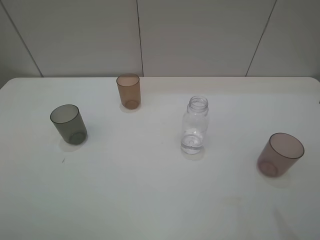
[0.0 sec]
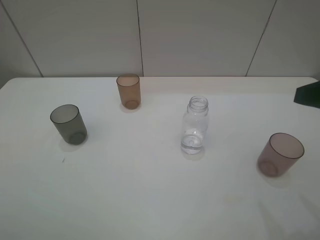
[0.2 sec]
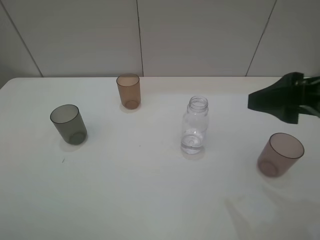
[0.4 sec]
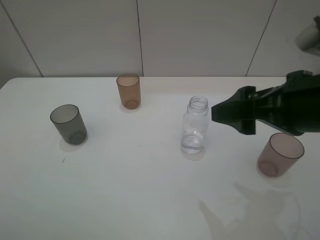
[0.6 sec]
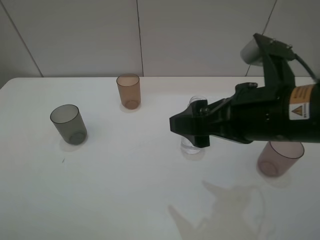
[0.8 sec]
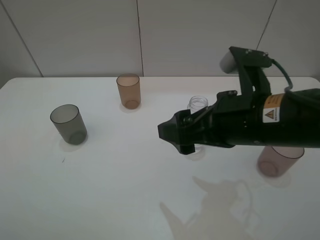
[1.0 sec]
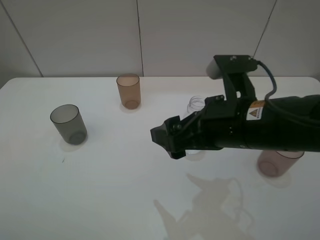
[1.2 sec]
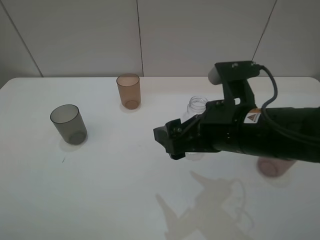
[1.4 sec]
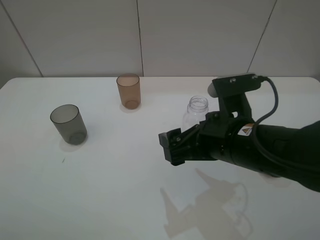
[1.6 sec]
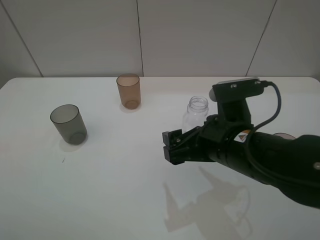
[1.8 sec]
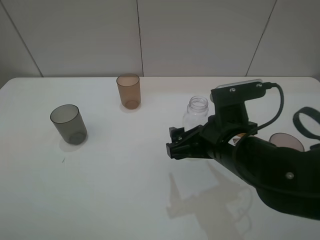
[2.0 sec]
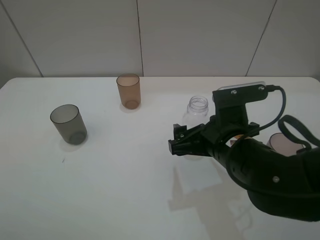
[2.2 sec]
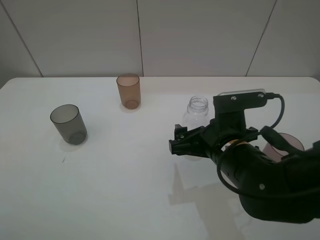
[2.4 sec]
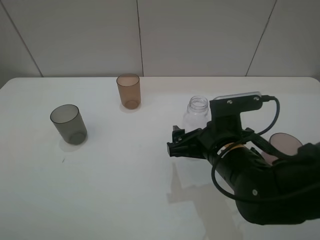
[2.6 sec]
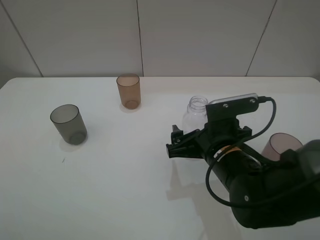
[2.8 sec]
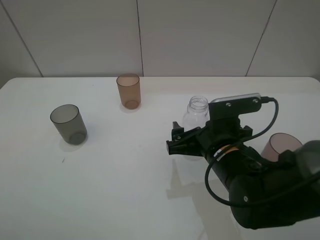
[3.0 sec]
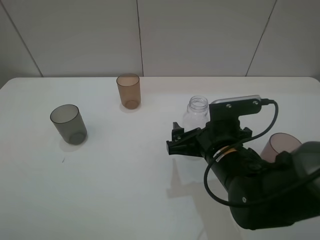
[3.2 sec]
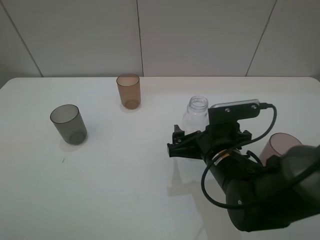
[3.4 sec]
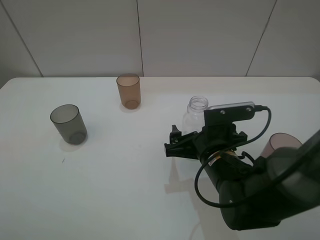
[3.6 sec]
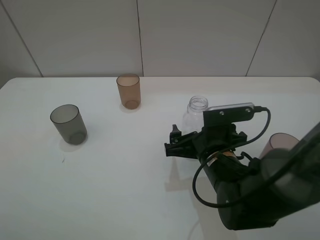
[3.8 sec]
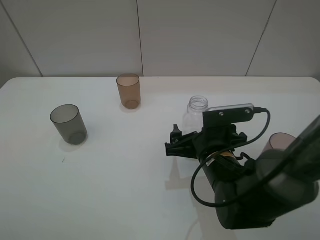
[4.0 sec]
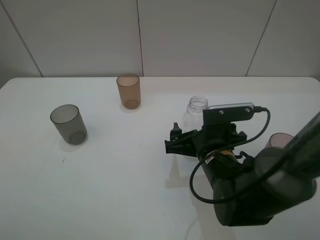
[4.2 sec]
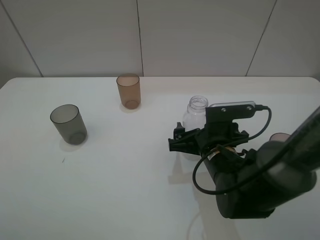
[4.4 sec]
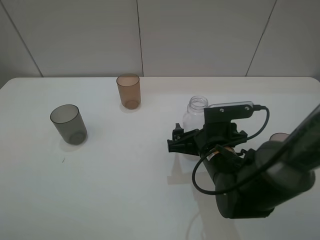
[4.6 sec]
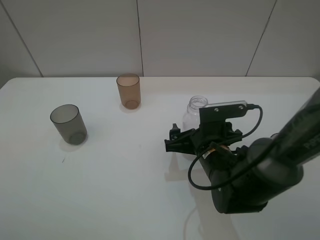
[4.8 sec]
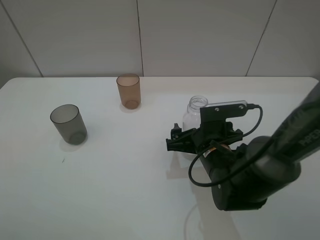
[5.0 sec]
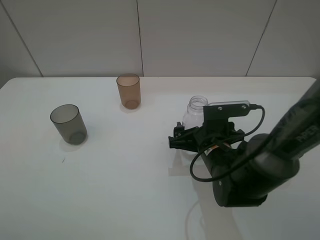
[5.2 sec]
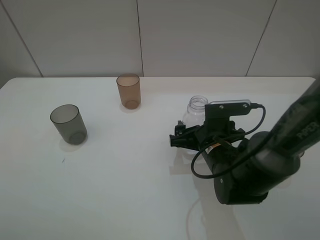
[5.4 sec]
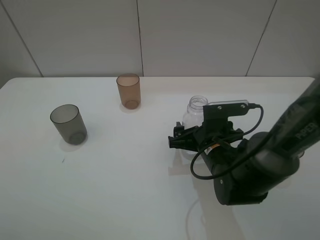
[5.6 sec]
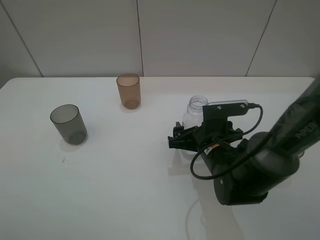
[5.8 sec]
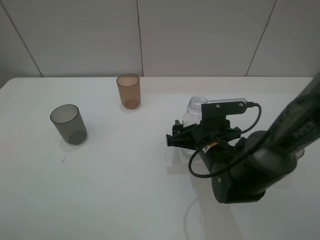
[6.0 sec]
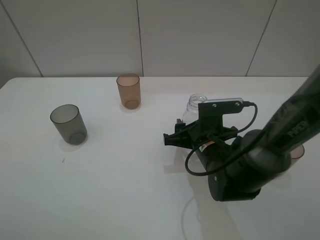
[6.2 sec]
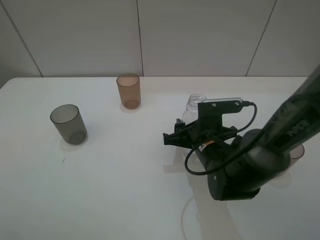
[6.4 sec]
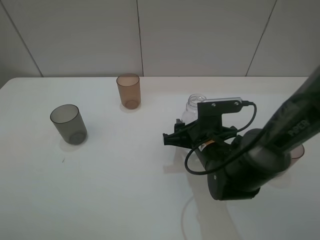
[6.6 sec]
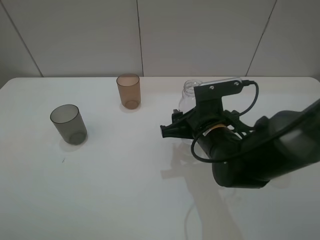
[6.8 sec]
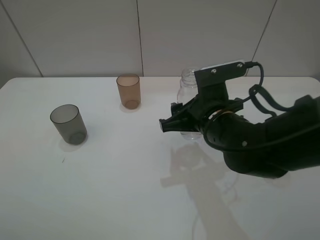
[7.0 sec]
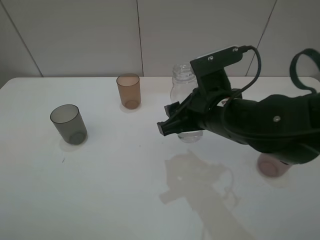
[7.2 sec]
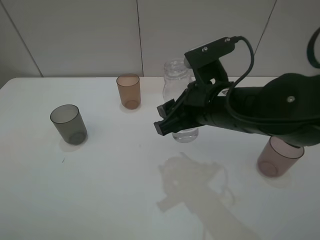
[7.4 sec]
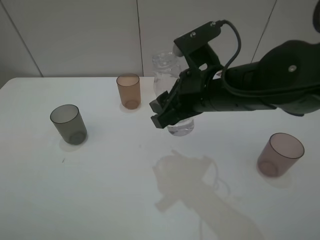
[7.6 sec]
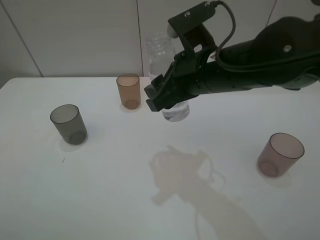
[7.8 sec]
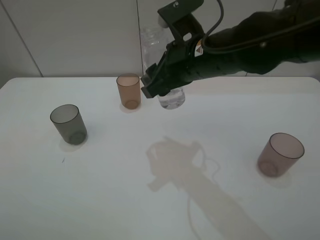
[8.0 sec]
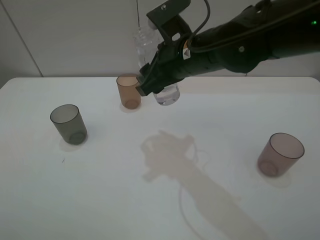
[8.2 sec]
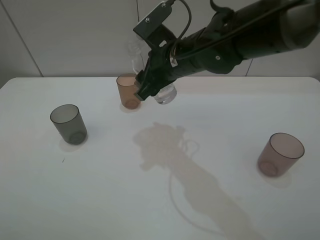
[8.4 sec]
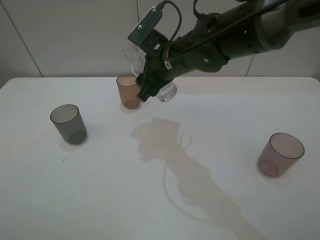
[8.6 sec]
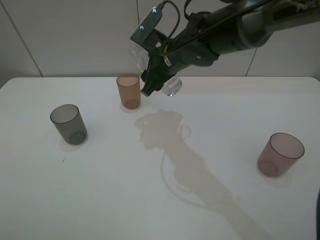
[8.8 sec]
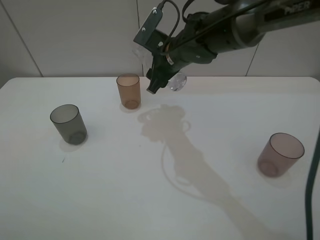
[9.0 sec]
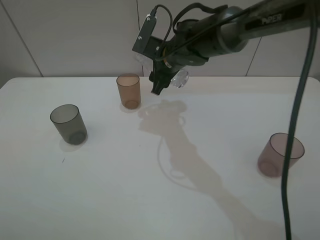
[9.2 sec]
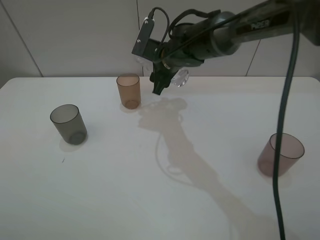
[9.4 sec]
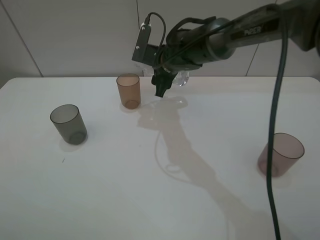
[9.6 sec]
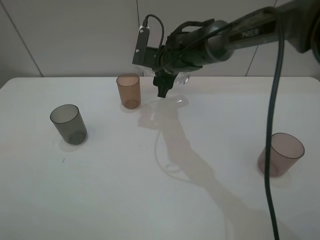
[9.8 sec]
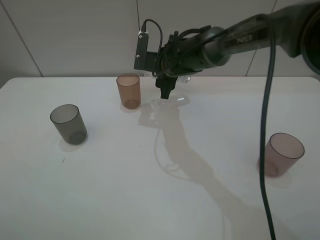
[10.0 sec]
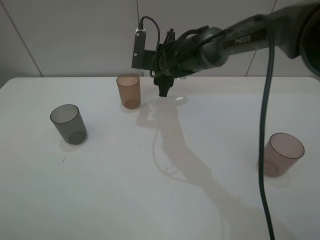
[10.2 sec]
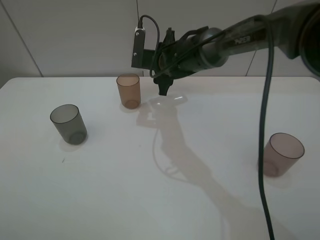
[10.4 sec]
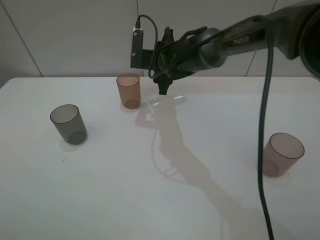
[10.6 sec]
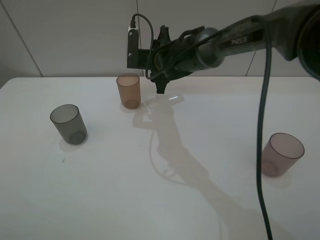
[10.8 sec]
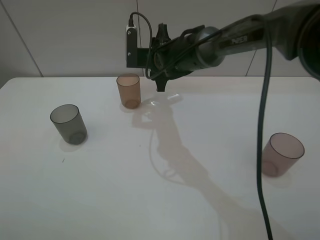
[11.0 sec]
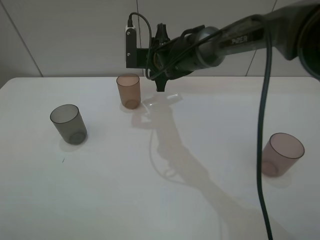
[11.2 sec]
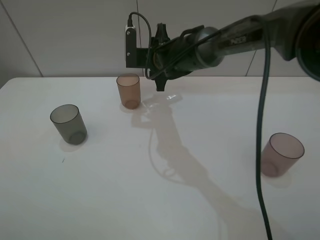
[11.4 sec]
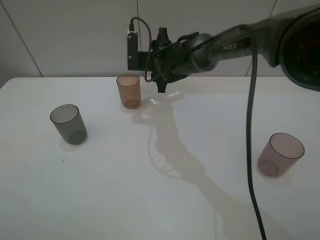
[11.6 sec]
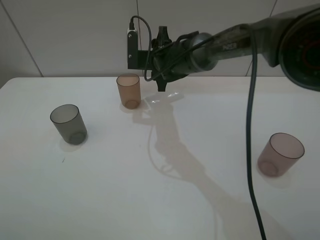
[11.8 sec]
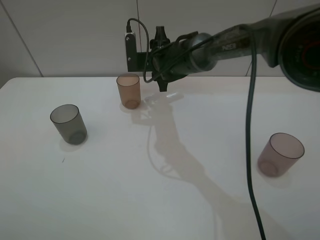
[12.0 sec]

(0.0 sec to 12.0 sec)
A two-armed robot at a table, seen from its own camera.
Task of the whole recording: pick up the bottle filled with water and pour water into the middle cup of the three cups.
Step, 0.0 sec - 6.2 sec: Grasp the transparent bottle with the right gripper.
0.0 sec - 1.6 sec: The right gripper moves to the left and downward, some 20 cm.
1.6 sec - 3.0 sec: The right gripper goes about 5 cm downward.
3.0 sec - 6.0 sec: There are only small adjustments of the grippers.
6.0 sec - 7.6 sec: The right gripper travels upward by about 15 cm, and closes its fingers.
7.6 sec - 9.0 sec: The right gripper goes approximately 15 cm forward.
9.0 sec - 10.4 sec: The right gripper moves roughly 5 cm.
10.4 sec - 12.0 sec: The grippers stay close to where they were, moving slightly.

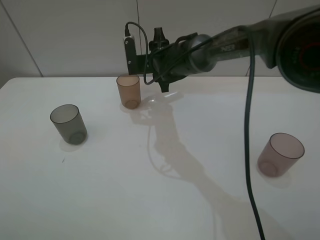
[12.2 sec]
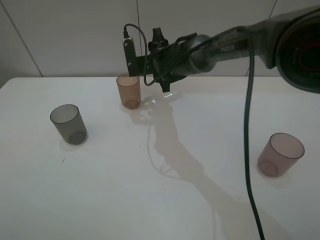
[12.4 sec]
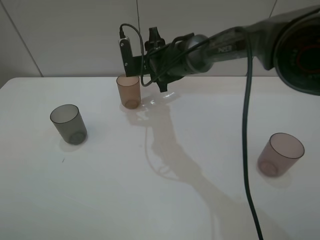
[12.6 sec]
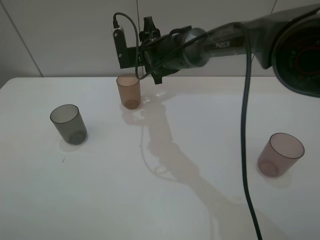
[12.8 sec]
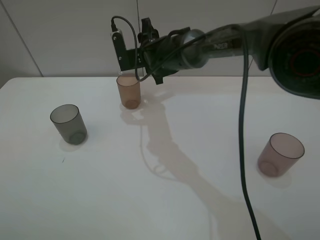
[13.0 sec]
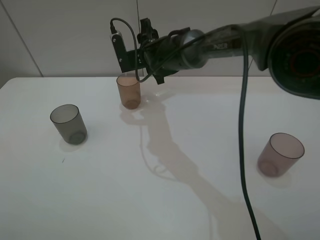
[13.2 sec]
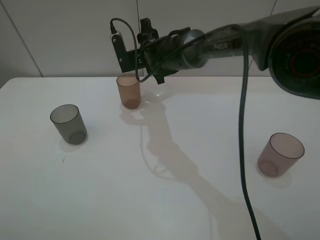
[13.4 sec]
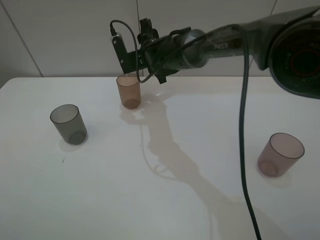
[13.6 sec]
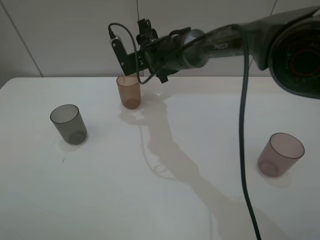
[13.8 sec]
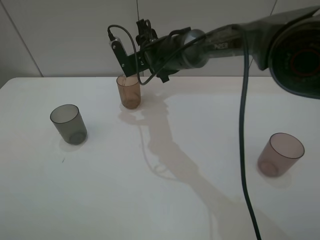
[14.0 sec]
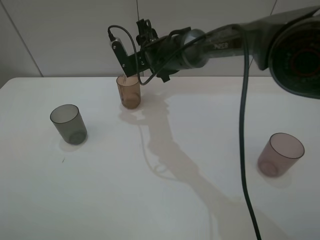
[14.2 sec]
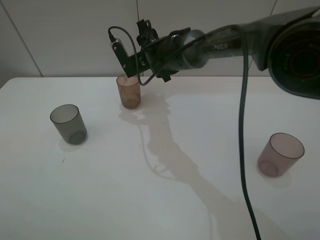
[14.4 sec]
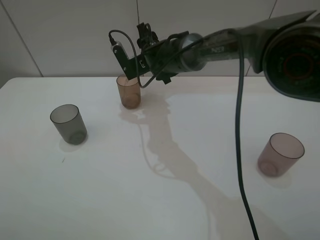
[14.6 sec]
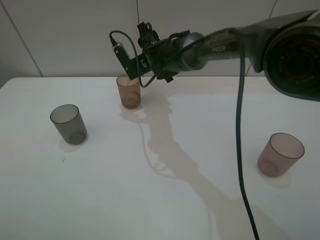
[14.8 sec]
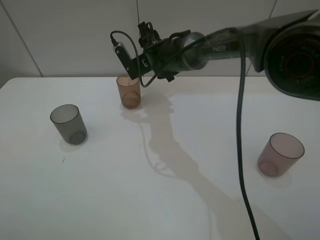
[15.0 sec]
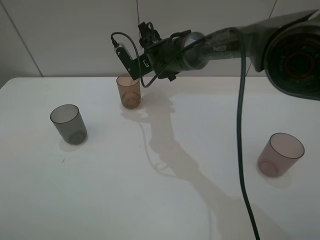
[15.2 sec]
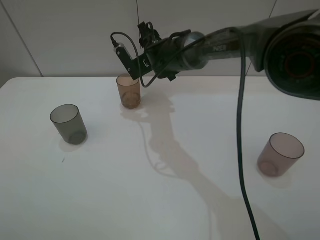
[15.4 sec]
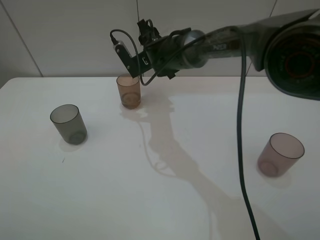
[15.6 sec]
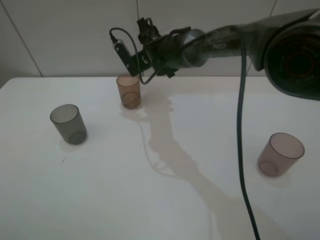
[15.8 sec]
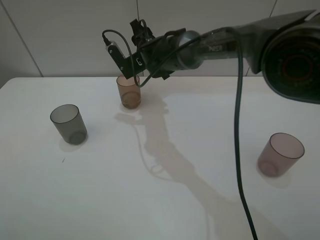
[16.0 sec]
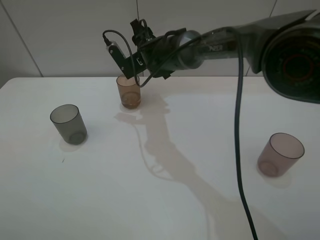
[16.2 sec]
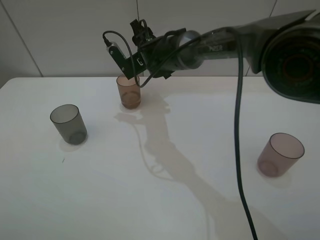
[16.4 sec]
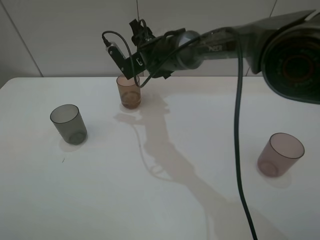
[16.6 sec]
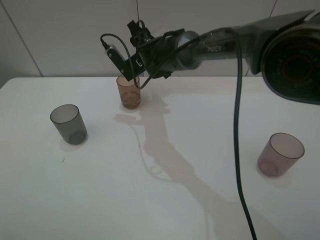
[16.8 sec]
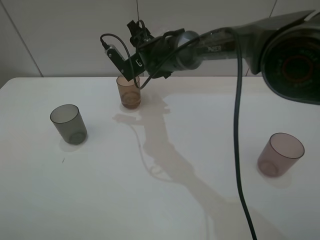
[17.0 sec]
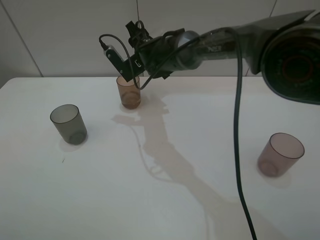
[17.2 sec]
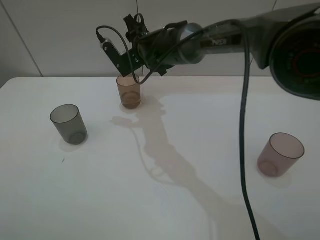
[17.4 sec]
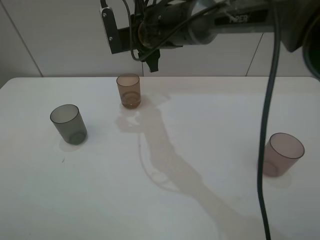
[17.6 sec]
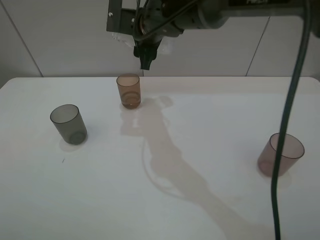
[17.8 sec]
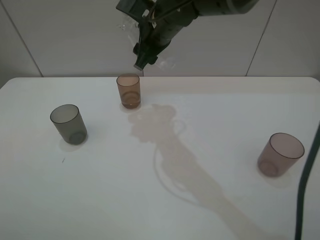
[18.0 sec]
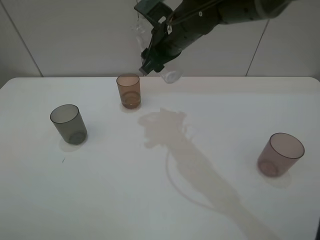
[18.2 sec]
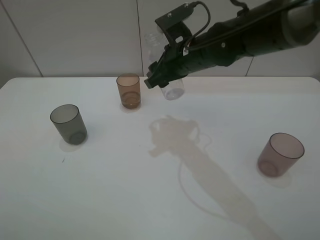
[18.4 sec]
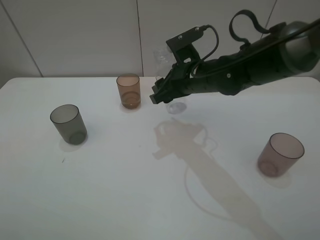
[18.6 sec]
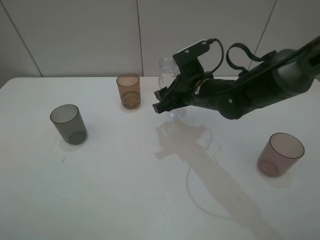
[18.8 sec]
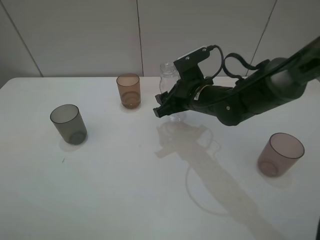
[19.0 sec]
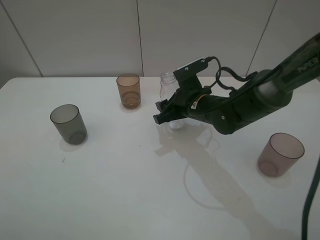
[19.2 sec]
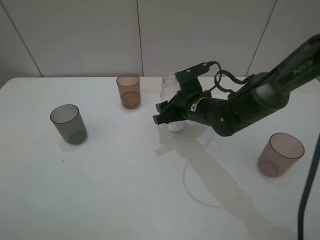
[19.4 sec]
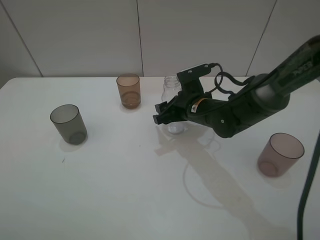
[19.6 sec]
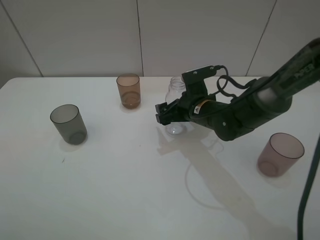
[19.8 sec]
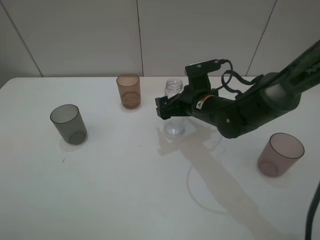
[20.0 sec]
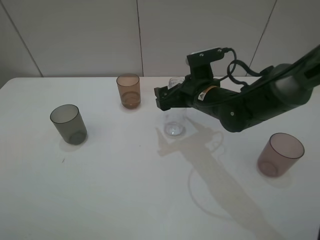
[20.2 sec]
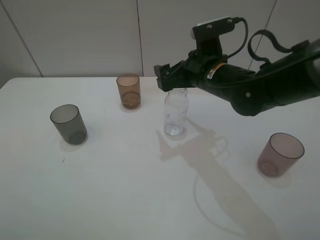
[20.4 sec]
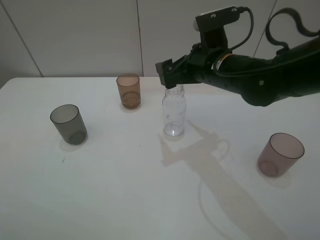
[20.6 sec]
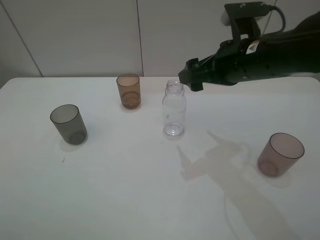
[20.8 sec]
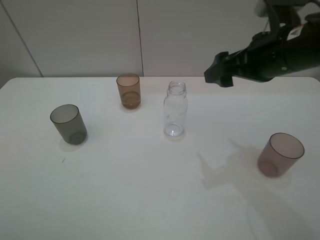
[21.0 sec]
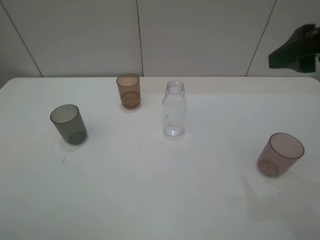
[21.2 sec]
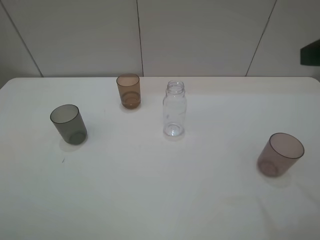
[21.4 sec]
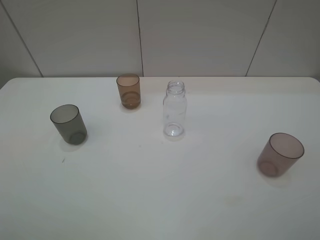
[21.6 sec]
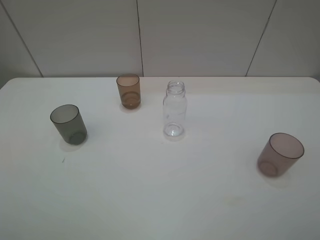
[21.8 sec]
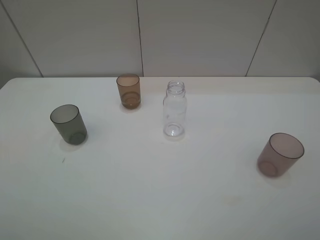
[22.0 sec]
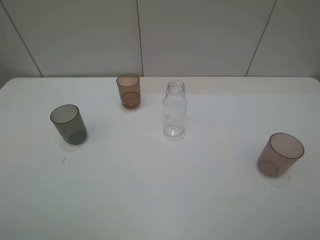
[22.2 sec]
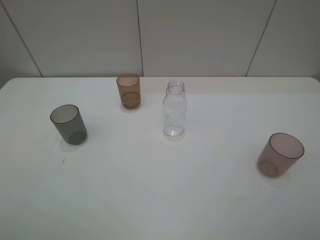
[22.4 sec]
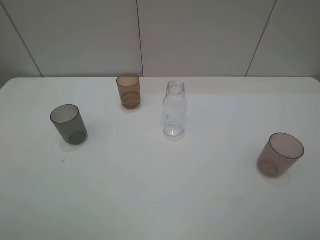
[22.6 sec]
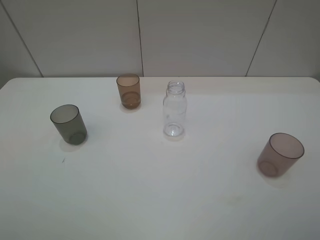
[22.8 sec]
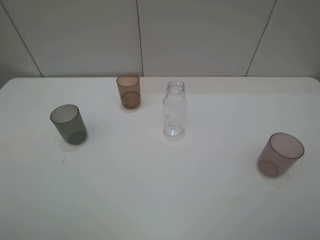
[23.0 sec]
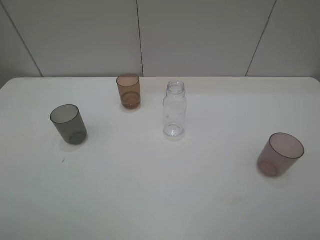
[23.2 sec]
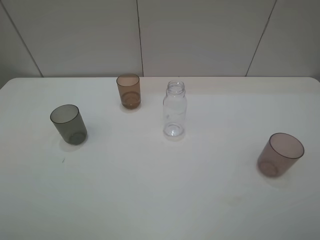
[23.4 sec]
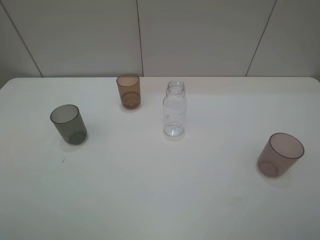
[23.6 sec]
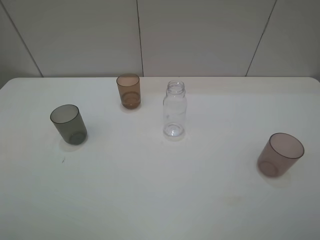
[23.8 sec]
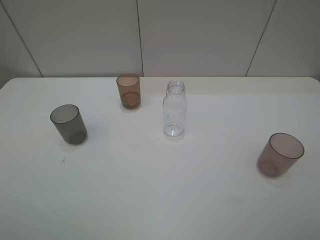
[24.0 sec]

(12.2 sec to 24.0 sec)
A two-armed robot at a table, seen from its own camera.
Task of the whole recording: pick up the bottle filled with water and pour water into the middle cup of the three cups.
Step, 12.2 sec - 17.8 sec: Pour water from transparent bottle tobrown cup with the right gripper.
Step, 18.0 sec - 20.6 sec: Place the transparent bottle with the right gripper.
12.2 sec - 13.6 sec: The grippers make only small movements.
13.6 sec - 16.6 sec: There are only small adjustments of the grippers.
16.6 sec - 18.2 sec: The right gripper moves upward and backward, approximately 10 cm.
18.2 sec - 19.6 sec: The right gripper is displaced downward and backward by about 15 cm.
19.6 sec - 21.0 sec: The right gripper goes roughly 25 cm upward, to the right and backward, and opens up.
21.0 sec - 22.6 sec: The right gripper heads backward, covering some 25 cm.
22.6 sec - 24.0 sec: Both grippers stay about where they are.
